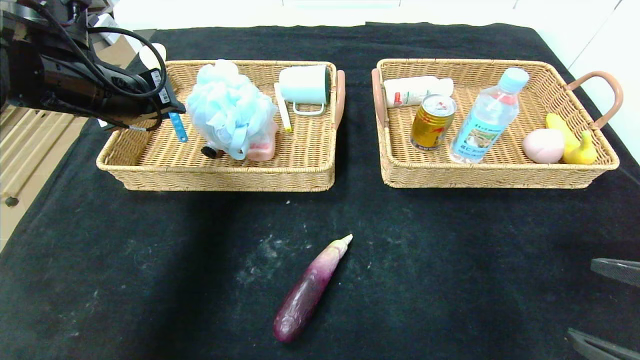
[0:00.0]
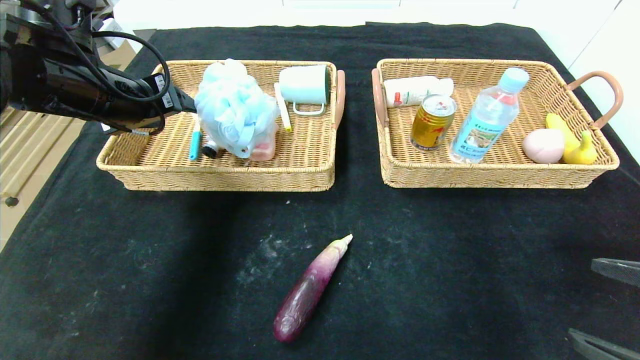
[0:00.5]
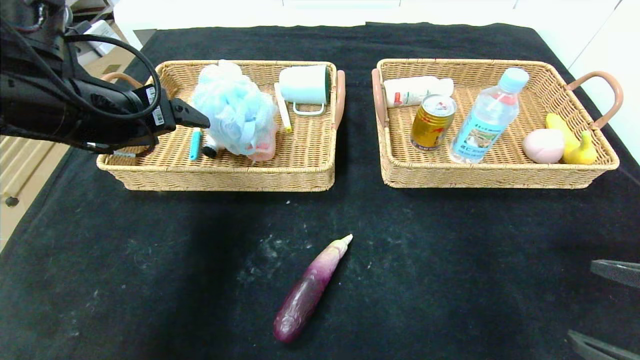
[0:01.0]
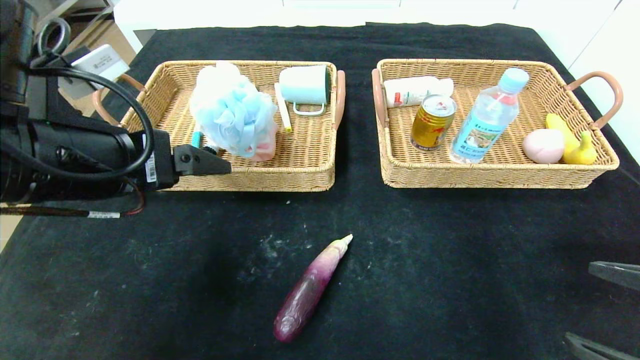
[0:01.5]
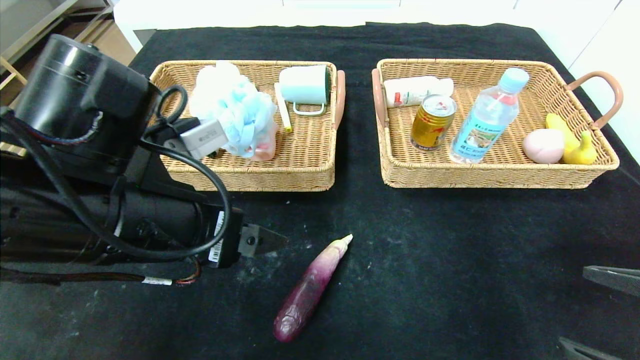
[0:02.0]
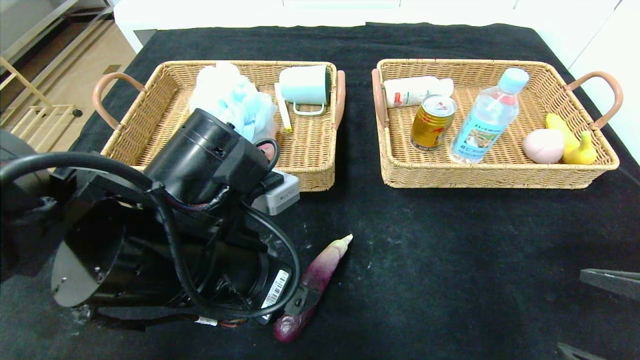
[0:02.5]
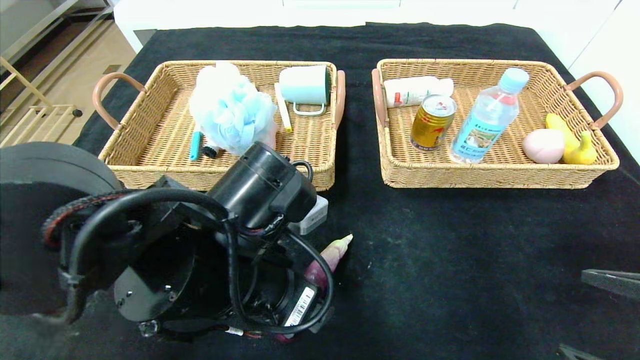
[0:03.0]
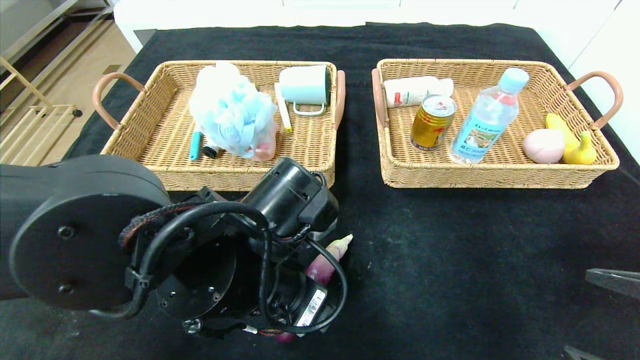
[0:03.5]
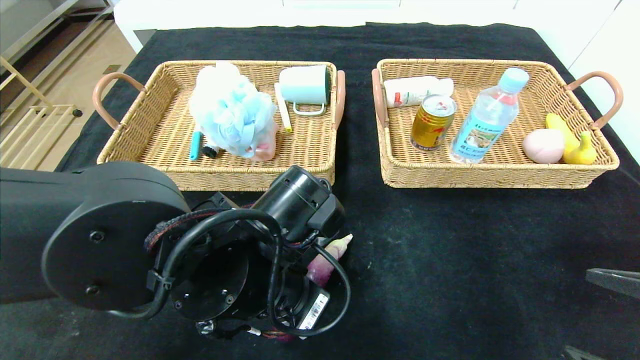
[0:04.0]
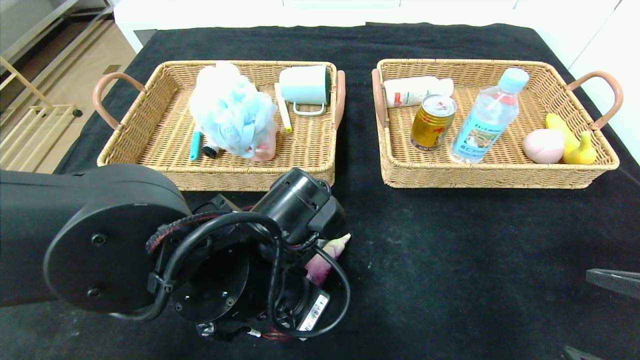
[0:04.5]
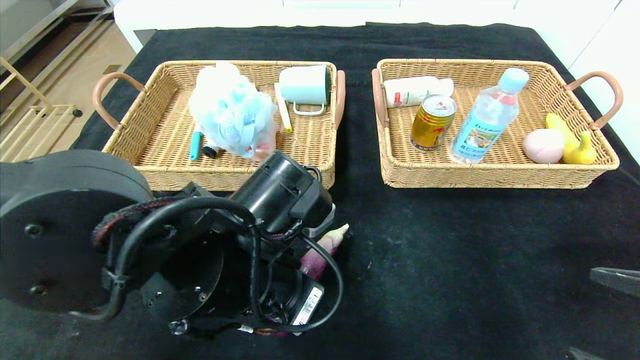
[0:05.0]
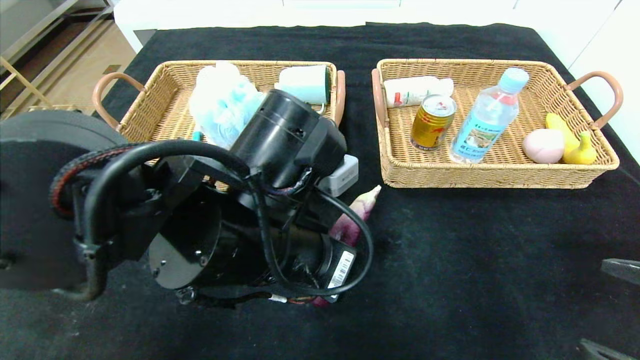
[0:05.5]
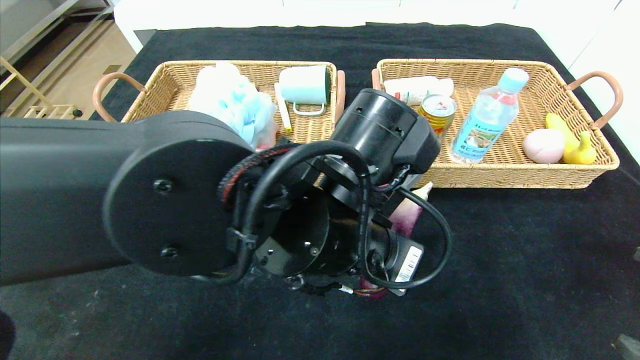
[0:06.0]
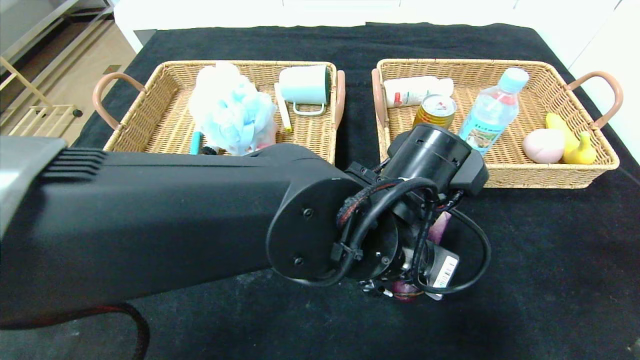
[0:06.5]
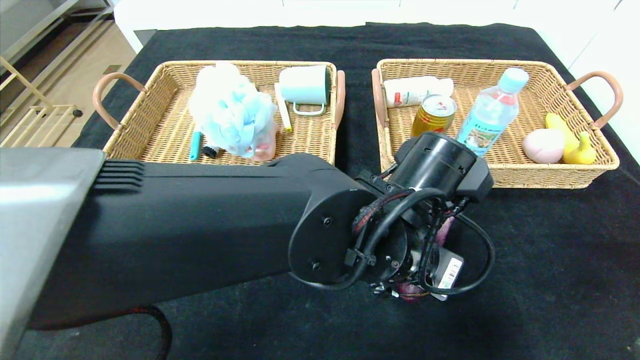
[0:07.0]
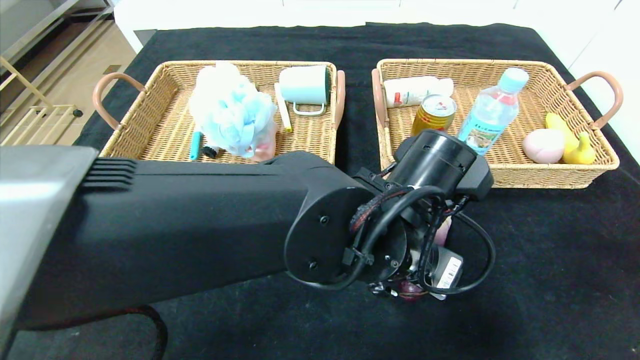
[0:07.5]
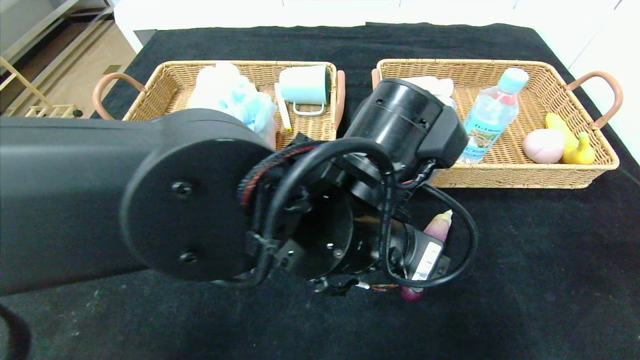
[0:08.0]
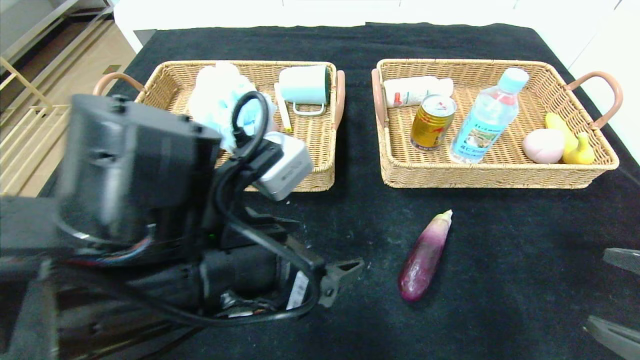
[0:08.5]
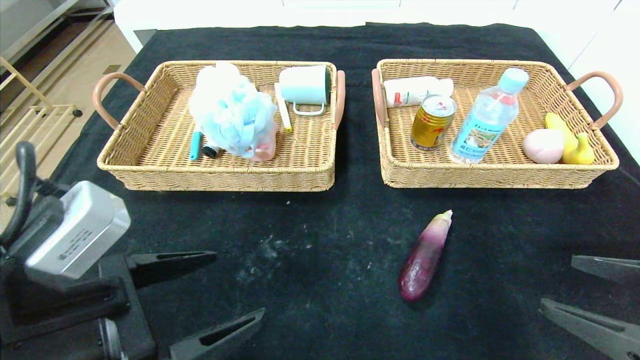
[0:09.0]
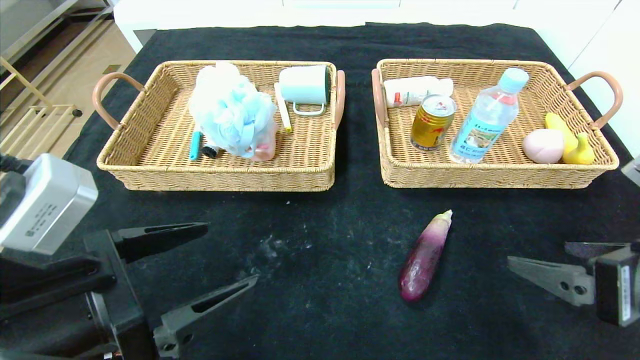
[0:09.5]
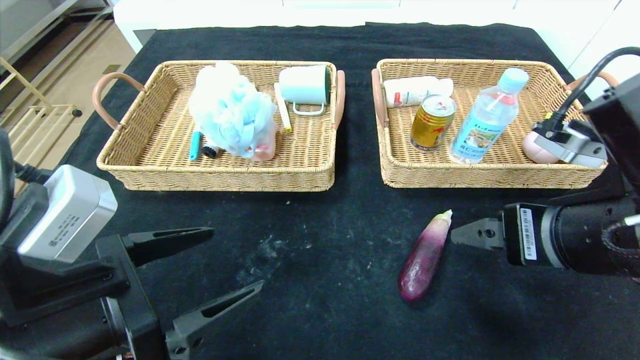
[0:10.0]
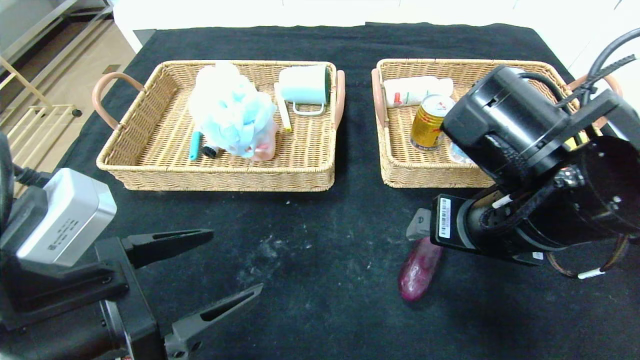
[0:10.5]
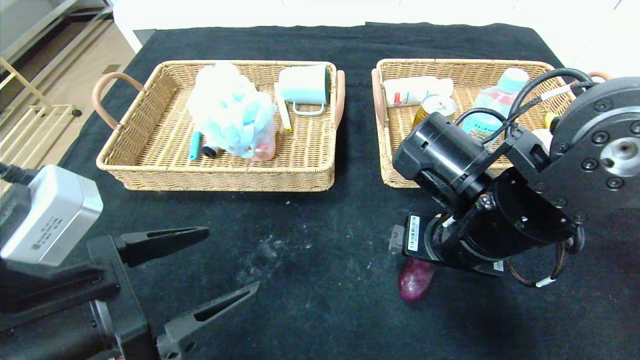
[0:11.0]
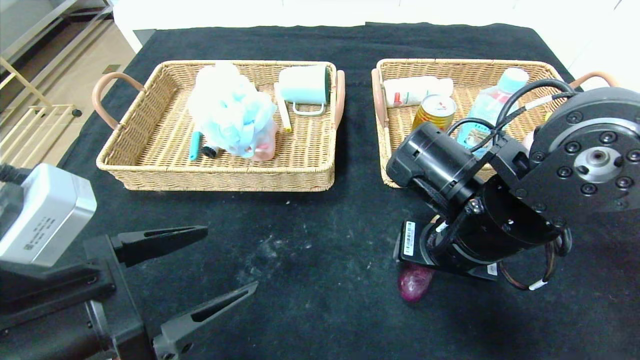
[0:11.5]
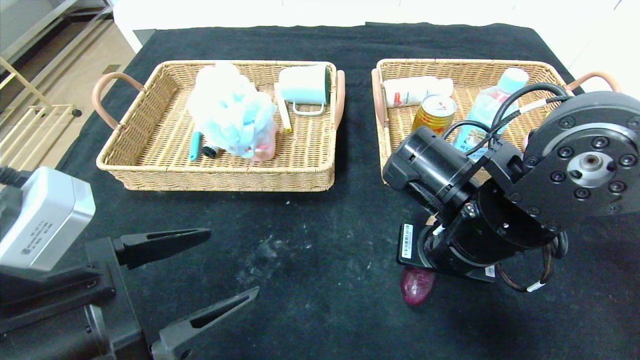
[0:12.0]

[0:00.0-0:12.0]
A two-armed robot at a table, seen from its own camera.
Step, 0:00.5 to 0:07.5: Place the eggplant in the center of the table.
0:00.0 to 0:02.0: The left gripper heads backward, to the right and downward, covering about 20 cm, and opens up.
0:02.0 to 0:04.0: The left gripper is displaced to the right and downward by some 10 cm, and closes up.
0:04.0 to 0:06.0: The left gripper travels to the right by some 10 cm.
0:06.0 to 0:08.0: The left gripper opens.
0:08.0 to 0:10.0: The left gripper goes approximately 20 cm to the left, while the right gripper heads to the left and forward, covering some 15 cm.
0:10.0 to 0:12.0: The right gripper shifts roughly 10 cm to the left, forward and downward, and closes its fingers.

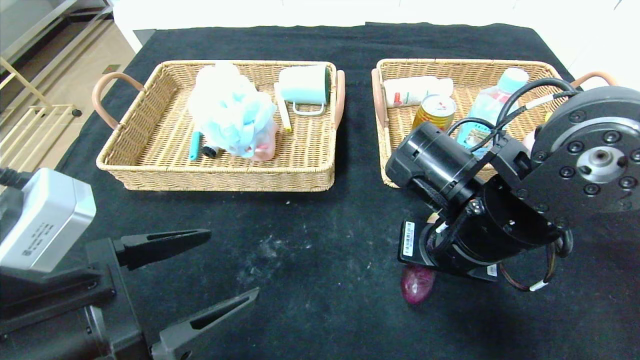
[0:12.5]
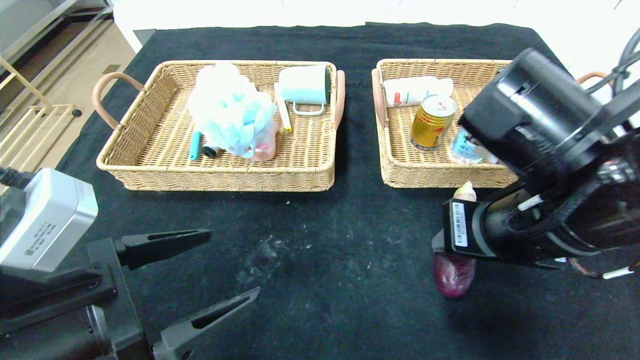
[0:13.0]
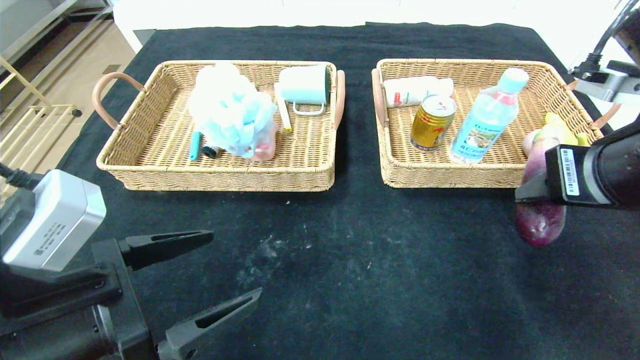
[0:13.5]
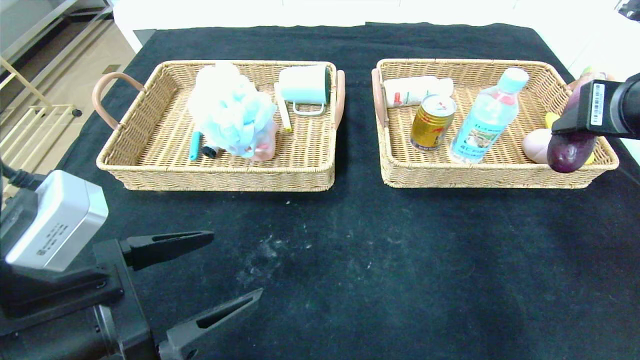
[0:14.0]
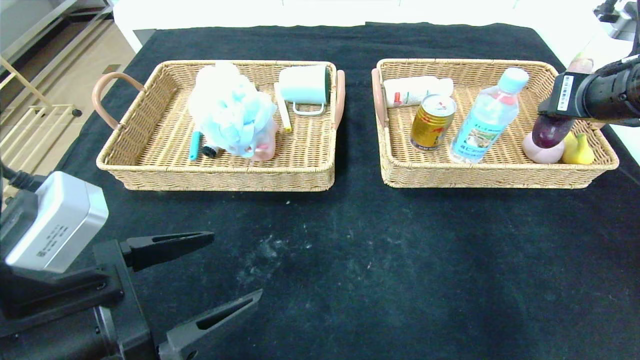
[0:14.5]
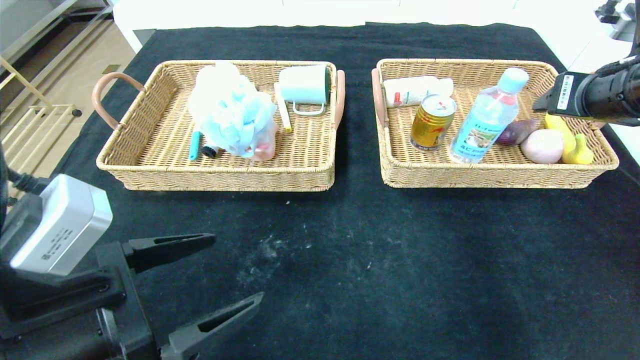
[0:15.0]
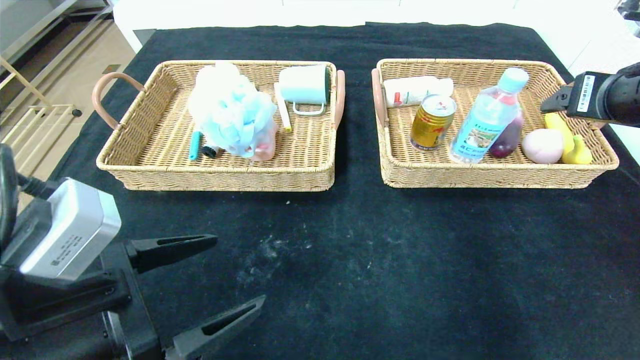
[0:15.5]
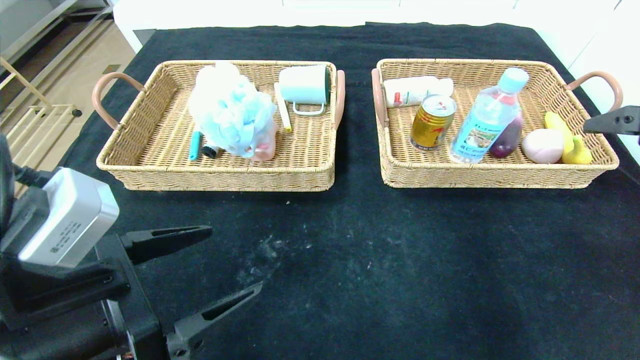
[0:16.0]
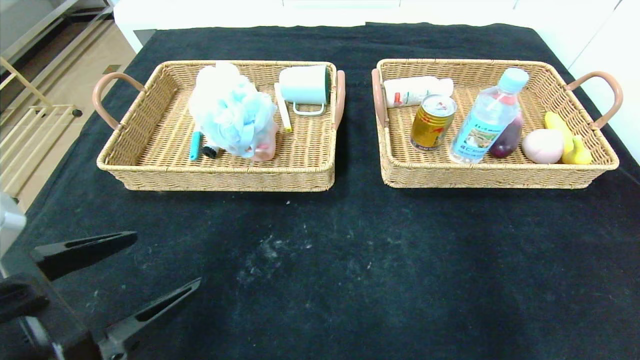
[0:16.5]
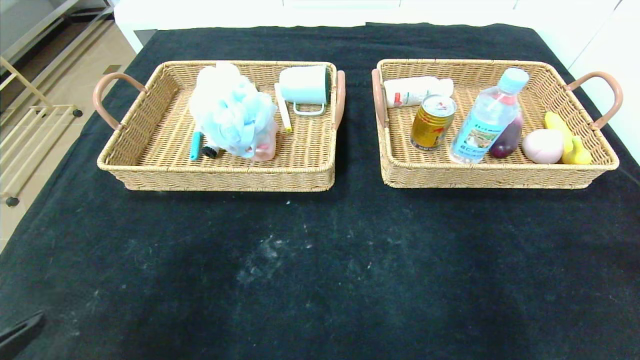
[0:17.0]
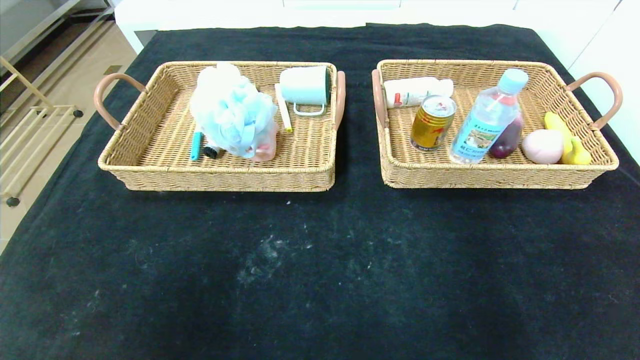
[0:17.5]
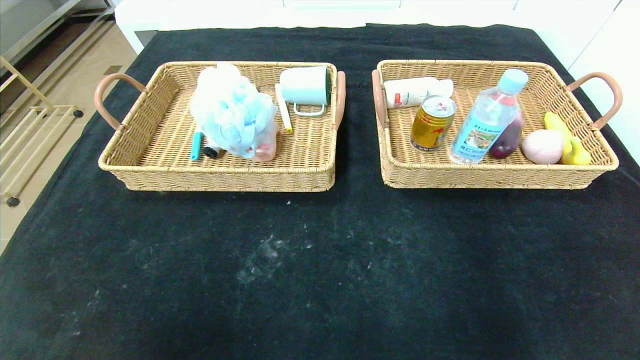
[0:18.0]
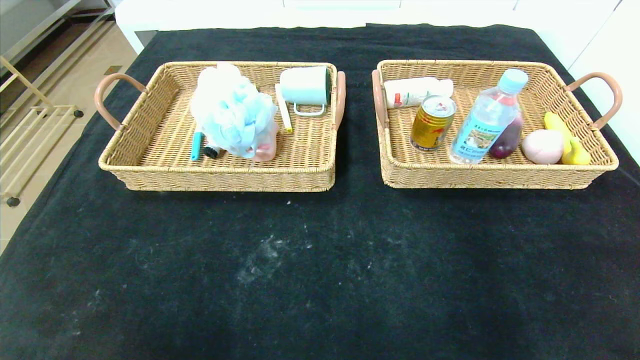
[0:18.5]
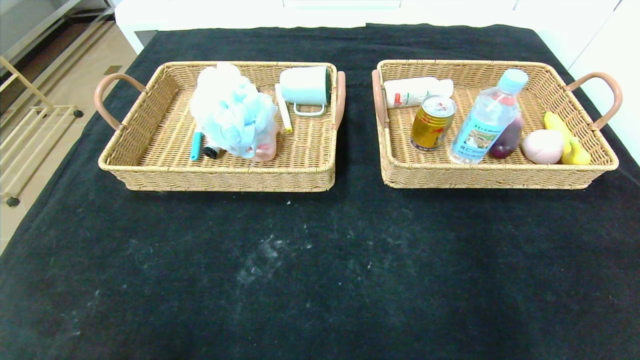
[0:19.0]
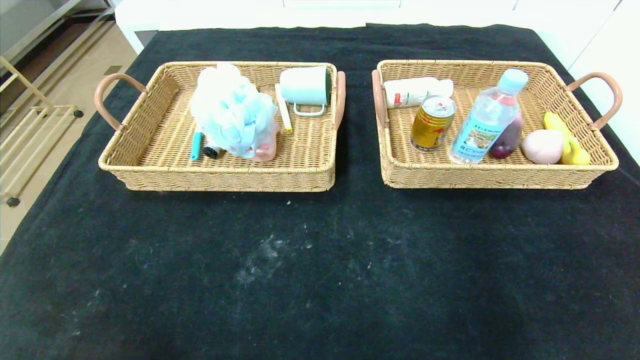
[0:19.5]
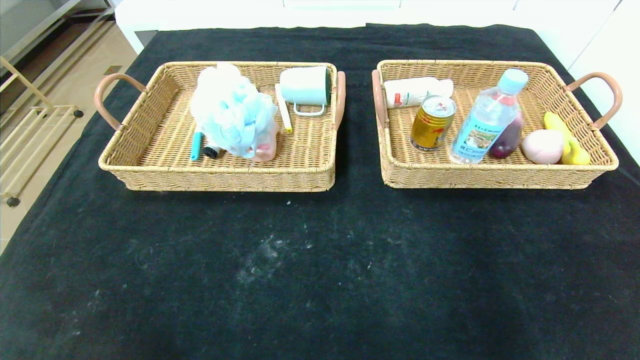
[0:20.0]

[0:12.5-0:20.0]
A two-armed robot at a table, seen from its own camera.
Step, 0:12.5 to 0:15.0: Grasp the eggplant and put it in the right basket.
0:12.5 to 0:14.5: The right gripper shifts roughly 20 cm to the right and upward.
0:14.5 to 0:16.5: The right gripper travels backward by about 20 cm, and opens.
0:16.5 to 0:18.0: The left gripper is displaced backward by roughly 20 cm. Meanwhile the right gripper travels backward and downward by some 20 cm.
